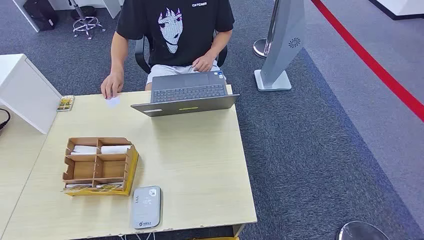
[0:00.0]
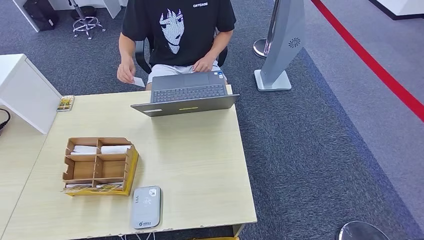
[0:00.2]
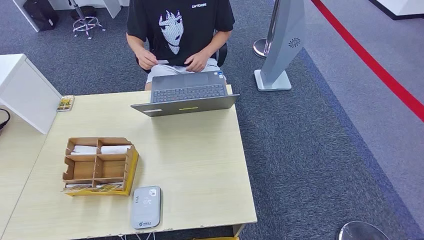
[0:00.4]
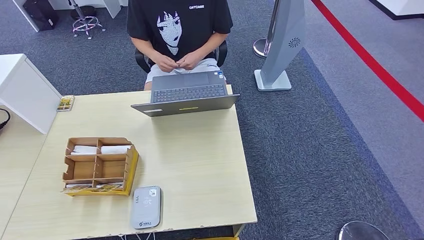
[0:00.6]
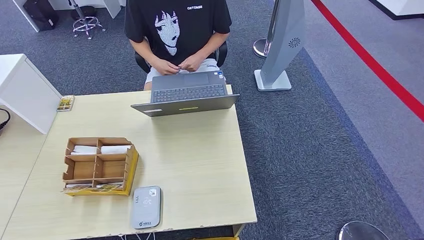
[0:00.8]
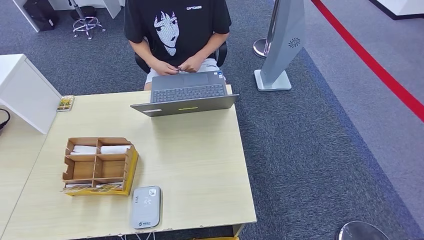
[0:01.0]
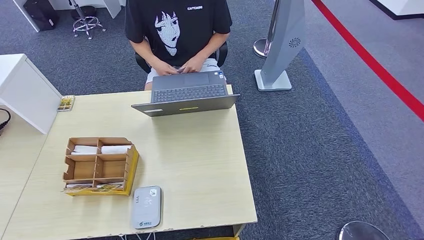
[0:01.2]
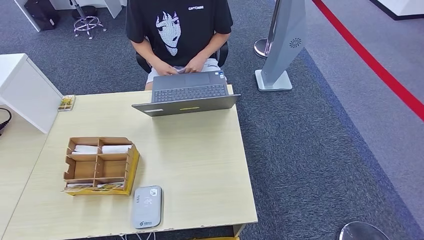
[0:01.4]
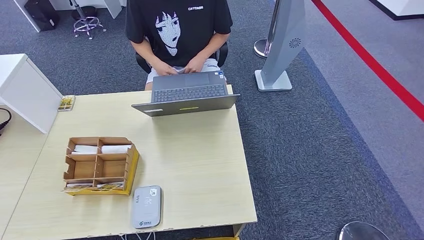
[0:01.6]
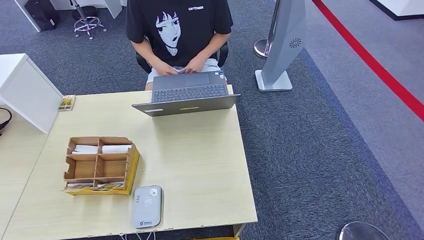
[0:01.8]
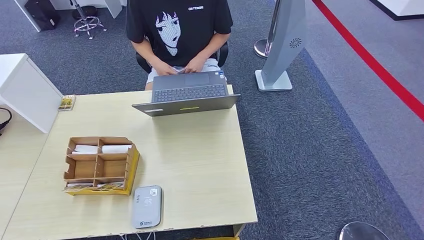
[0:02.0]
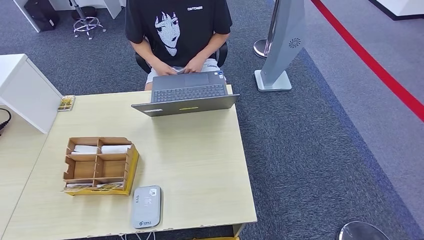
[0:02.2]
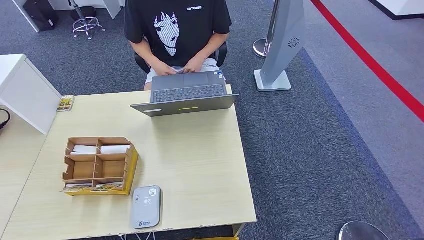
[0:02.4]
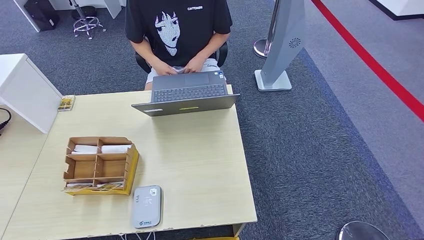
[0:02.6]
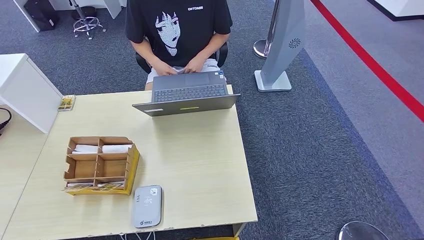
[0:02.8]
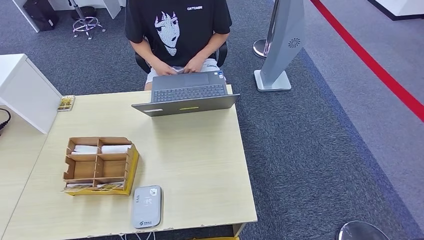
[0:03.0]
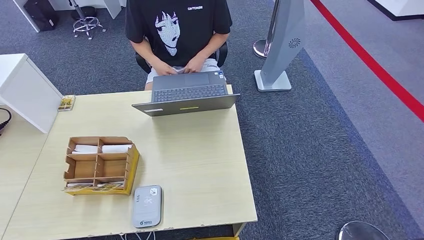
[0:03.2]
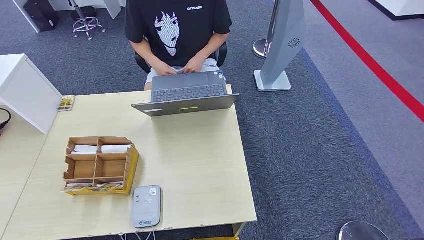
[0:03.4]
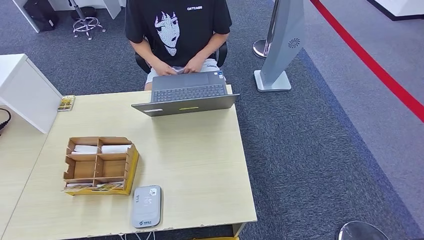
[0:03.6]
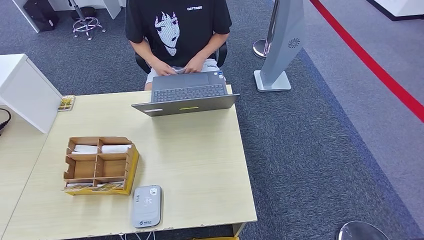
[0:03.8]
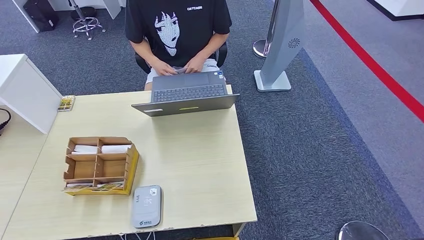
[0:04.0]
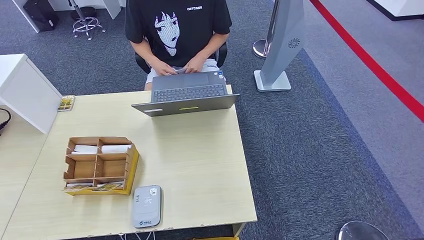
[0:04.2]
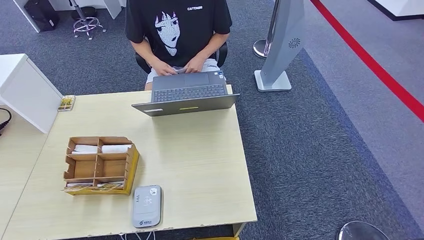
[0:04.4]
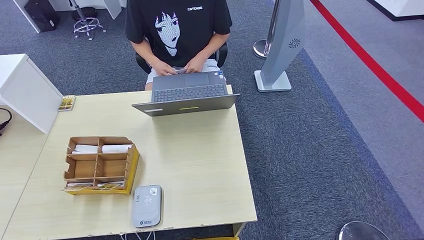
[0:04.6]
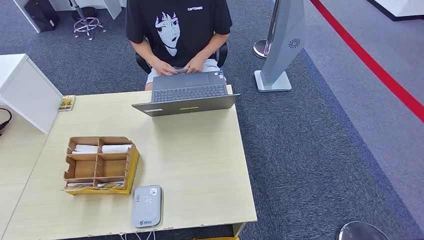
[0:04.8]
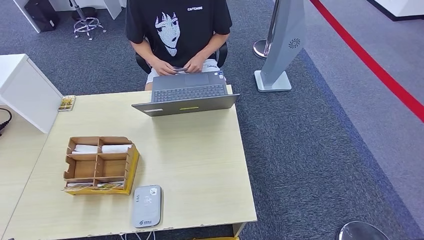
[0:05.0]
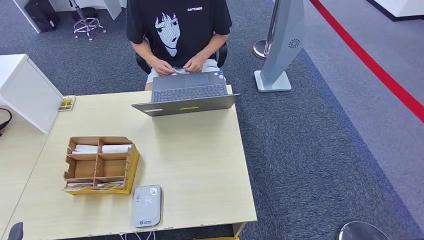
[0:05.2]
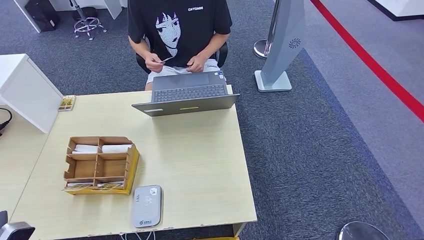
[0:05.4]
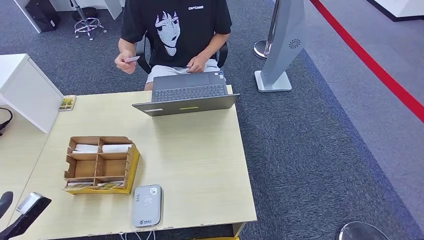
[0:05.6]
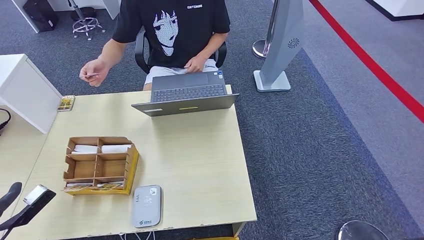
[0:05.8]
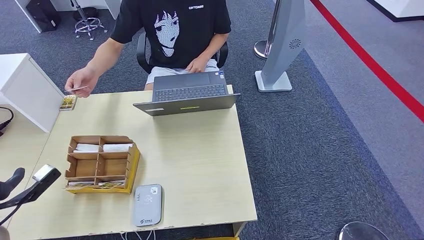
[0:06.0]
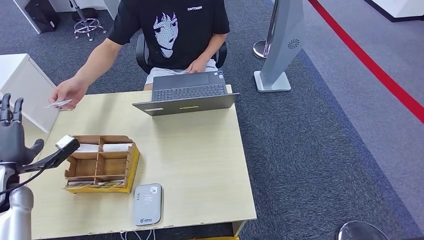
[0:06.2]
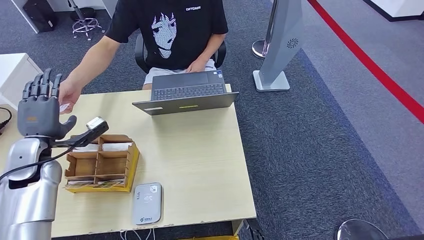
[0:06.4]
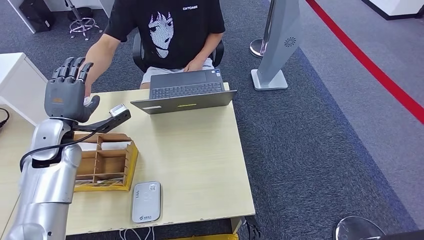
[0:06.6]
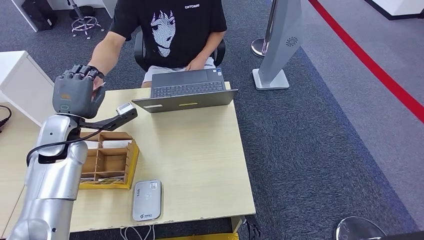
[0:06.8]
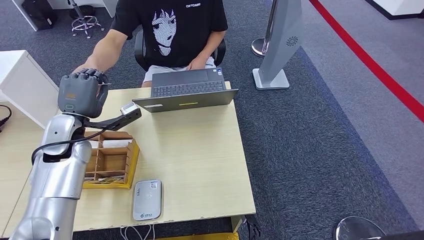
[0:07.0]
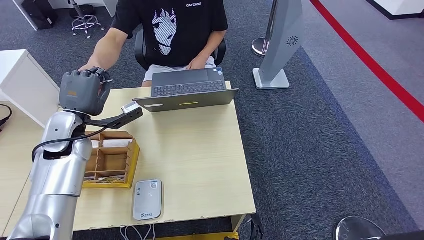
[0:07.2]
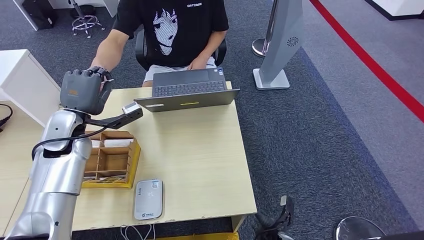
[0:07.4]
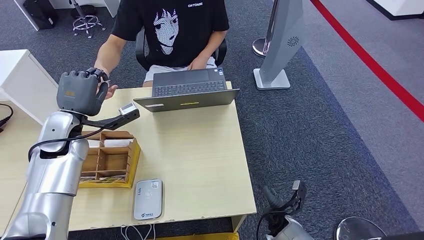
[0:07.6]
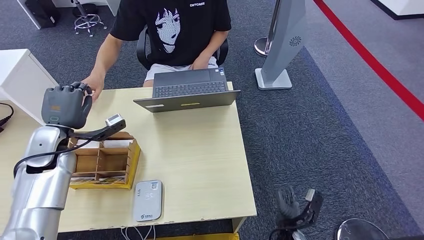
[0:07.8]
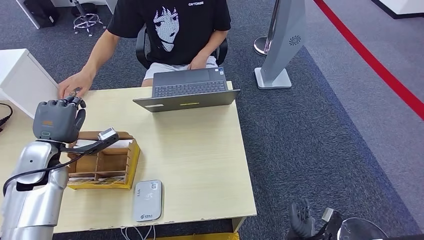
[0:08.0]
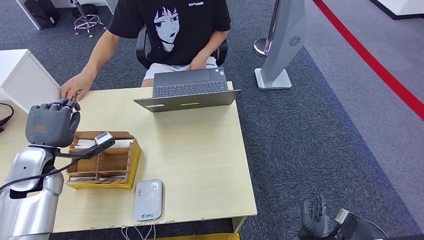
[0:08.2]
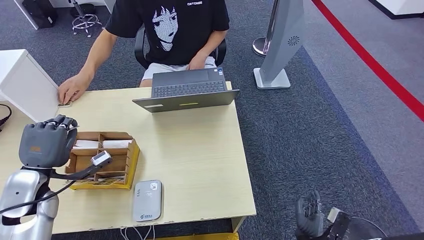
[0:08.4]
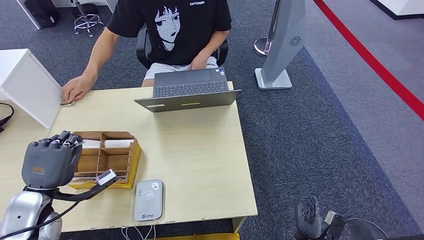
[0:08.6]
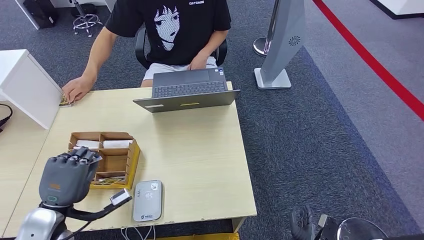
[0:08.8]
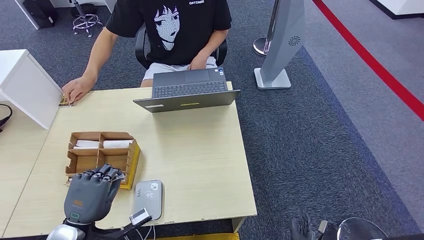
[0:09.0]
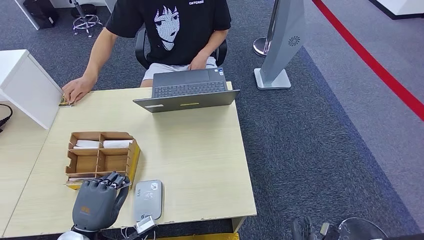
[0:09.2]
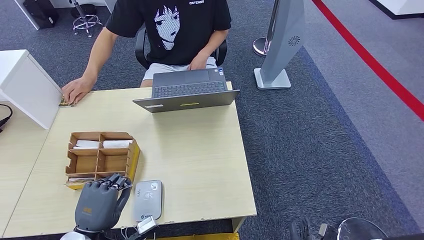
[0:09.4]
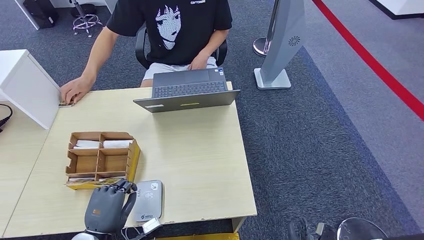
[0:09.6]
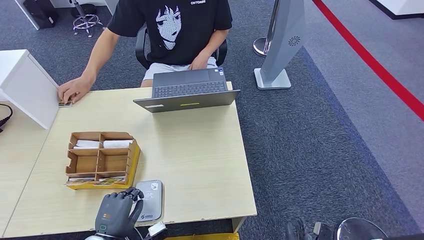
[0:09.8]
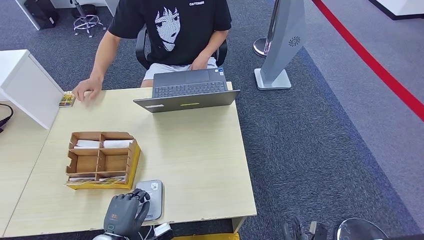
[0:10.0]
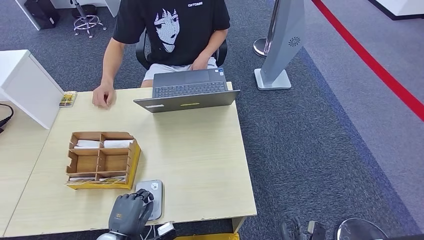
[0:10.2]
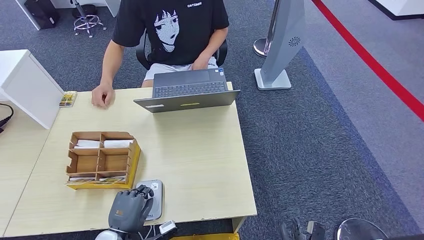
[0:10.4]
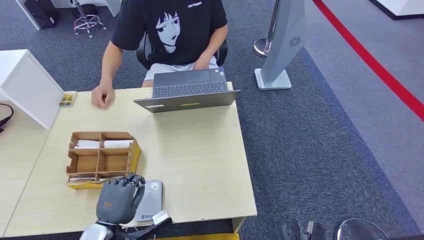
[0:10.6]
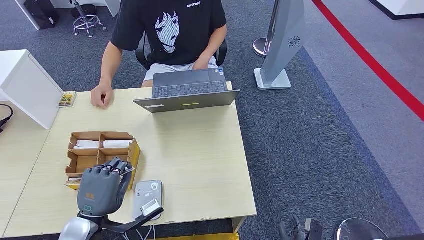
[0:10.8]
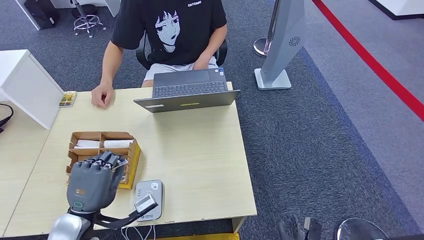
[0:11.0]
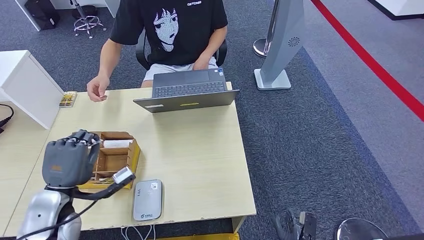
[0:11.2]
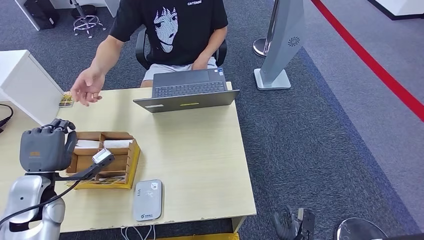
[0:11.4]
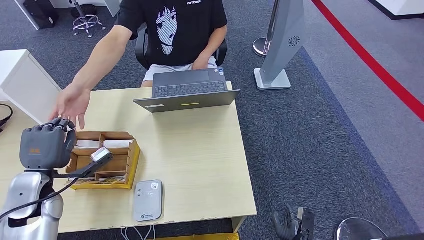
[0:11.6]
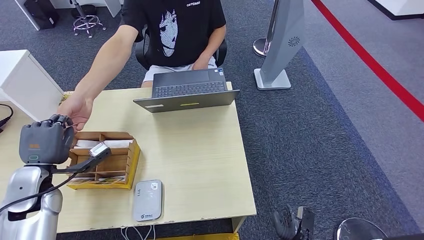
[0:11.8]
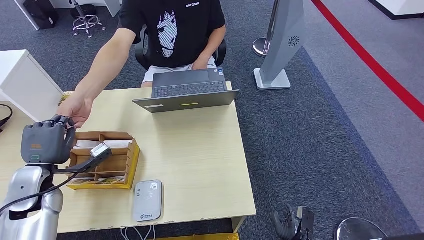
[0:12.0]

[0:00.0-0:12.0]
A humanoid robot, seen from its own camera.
Step, 0:00.0 to 0:06.6: Take the ID card from the person's hand.
Step, 0:06.8 to 0:09.8: Place the ID card on the card reader.
0:01.6 to 0:03.0: The right hand shifts some 10 cm to the left. Meanwhile the left hand moves about 5 cm.
0:04.4 to 0:06.0: The left hand is displaced forward, upward and to the left by approximately 30 cm.
0:07.6 to 0:09.0: The right hand goes approximately 10 cm backward; the left hand goes approximately 25 cm backward and downward.
0:09.0 to 0:10.4: The left hand goes some 10 cm downward.
0:10.4 to 0:12.0: The left hand heads forward, upward and to the left, covering about 25 cm.

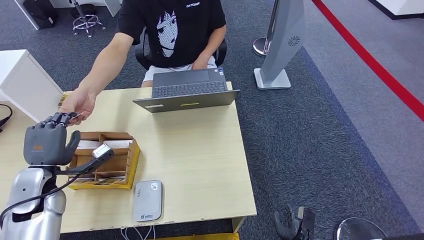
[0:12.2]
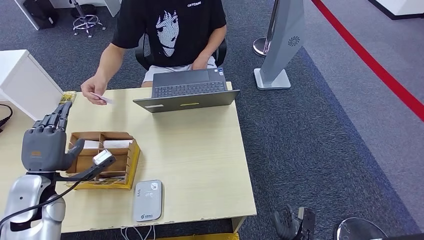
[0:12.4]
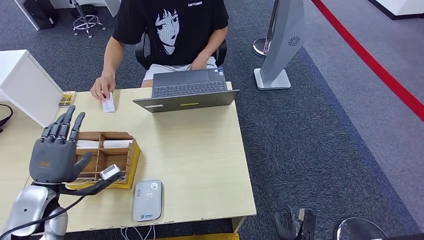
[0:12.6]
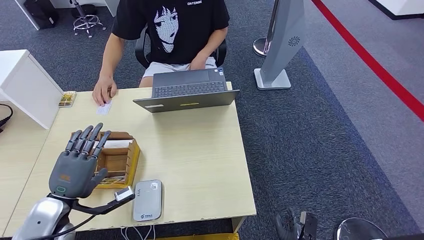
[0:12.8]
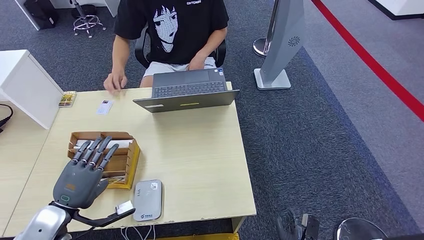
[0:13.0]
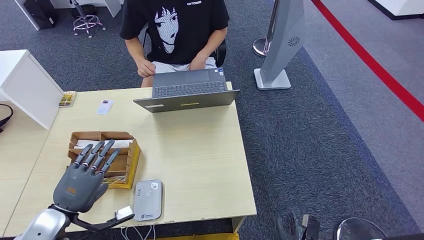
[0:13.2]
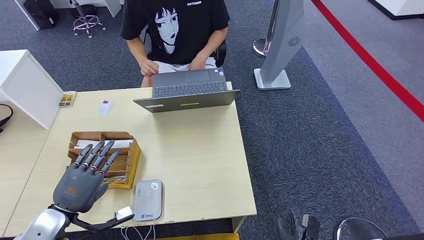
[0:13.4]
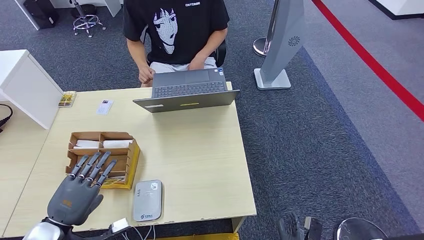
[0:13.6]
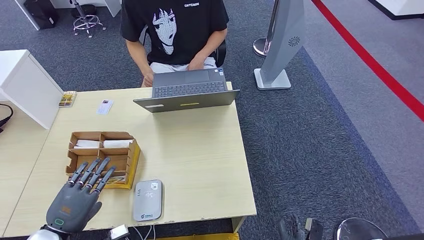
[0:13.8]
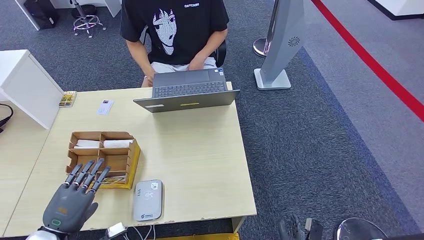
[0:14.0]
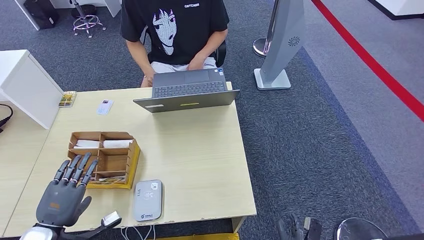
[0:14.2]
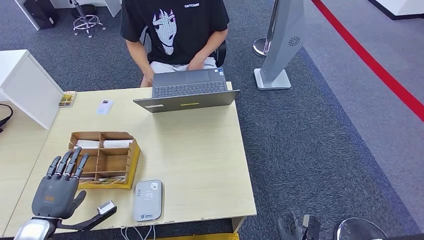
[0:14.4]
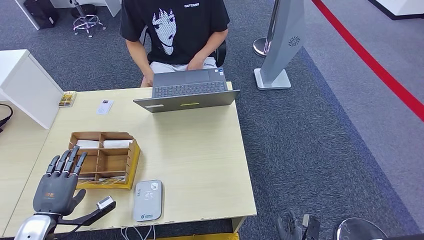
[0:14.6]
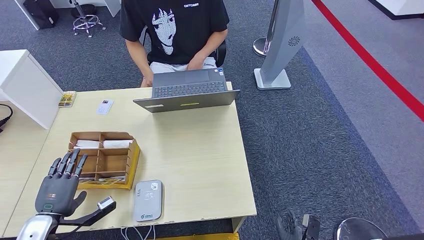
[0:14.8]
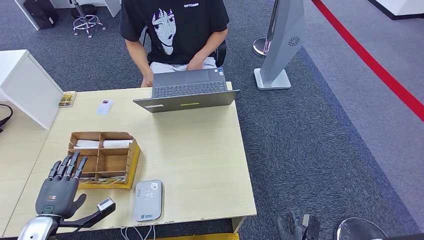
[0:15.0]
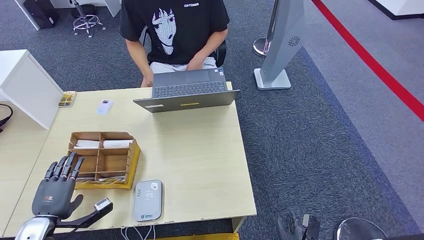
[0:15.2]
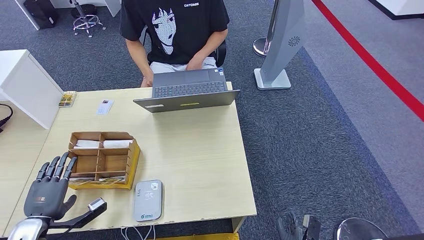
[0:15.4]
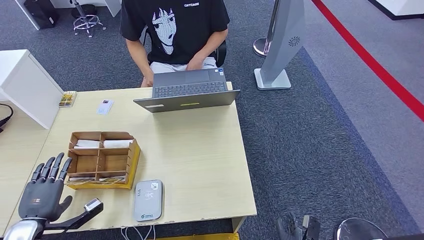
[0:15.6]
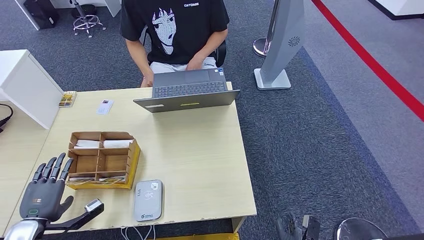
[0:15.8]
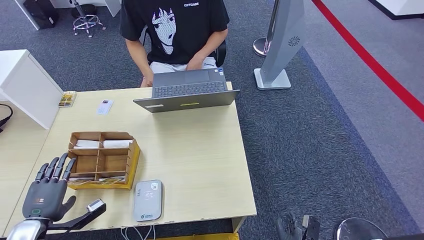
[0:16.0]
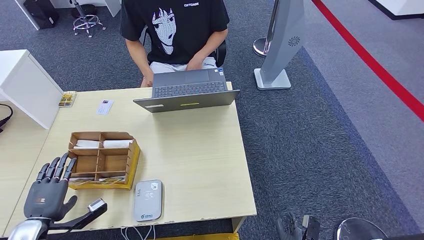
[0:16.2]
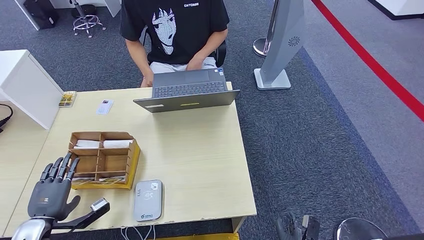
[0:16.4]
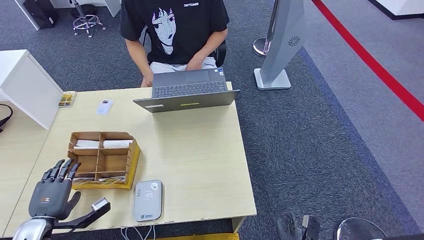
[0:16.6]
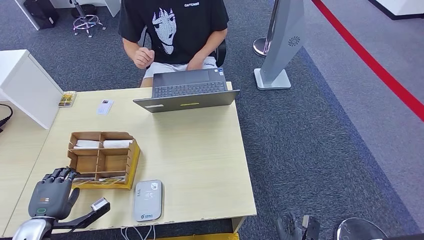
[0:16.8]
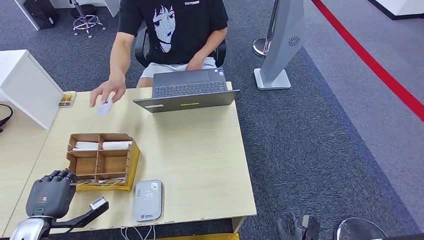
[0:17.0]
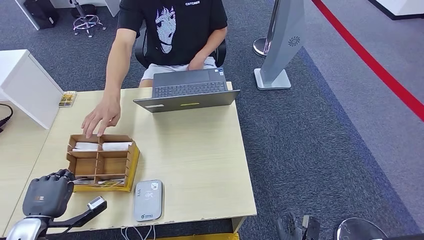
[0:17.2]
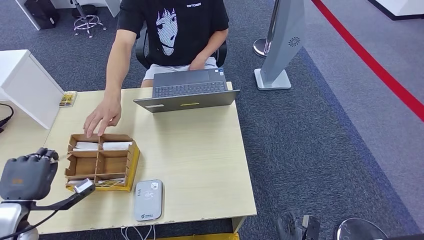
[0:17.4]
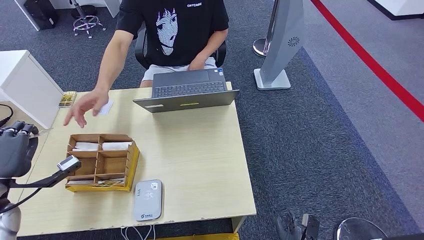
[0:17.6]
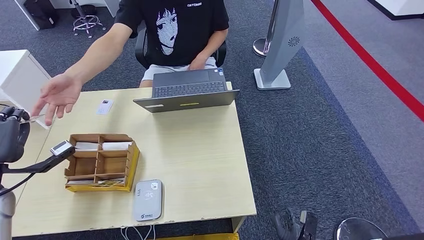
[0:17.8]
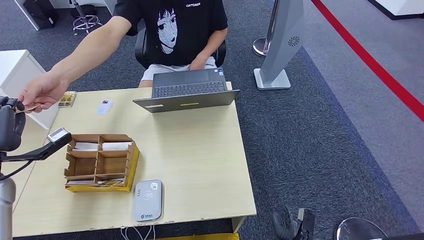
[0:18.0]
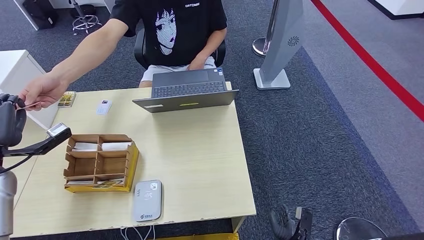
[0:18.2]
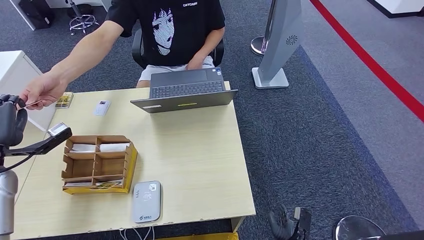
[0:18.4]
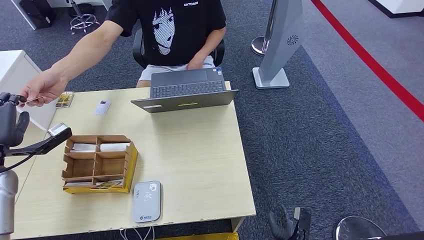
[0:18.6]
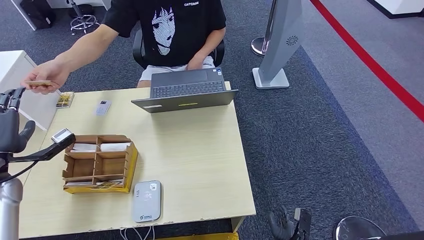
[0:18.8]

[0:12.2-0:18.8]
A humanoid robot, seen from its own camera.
Step, 0:13.4 to 0:17.6: Pick up the room key from the key card box.
0:12.2 to 0:13.8: The left hand is displaced backward by some 15 cm.
0:13.8 to 0:15.4: The left hand shifts some 5 cm to the left.
0:15.4 to 0:17.2: The two hands keep their place.
